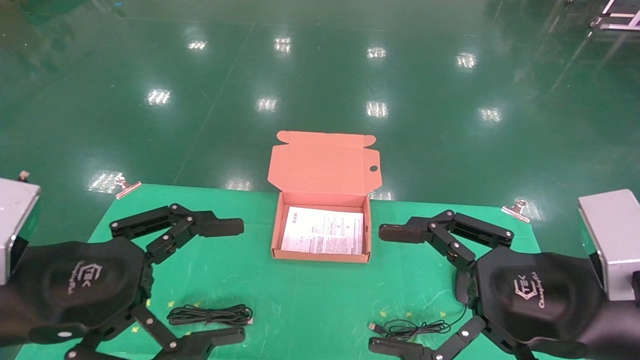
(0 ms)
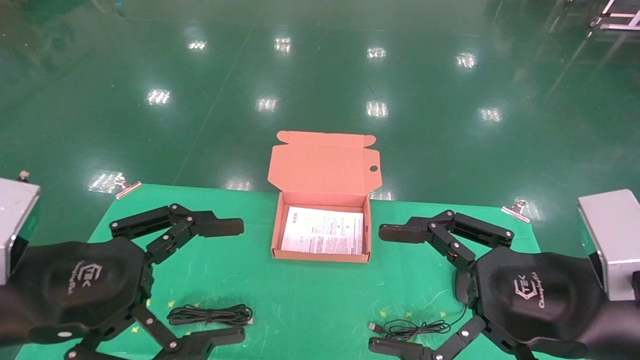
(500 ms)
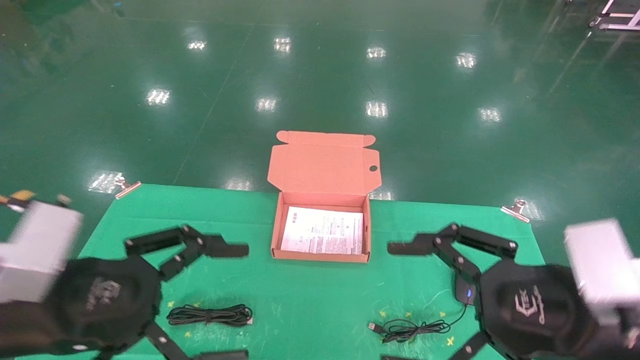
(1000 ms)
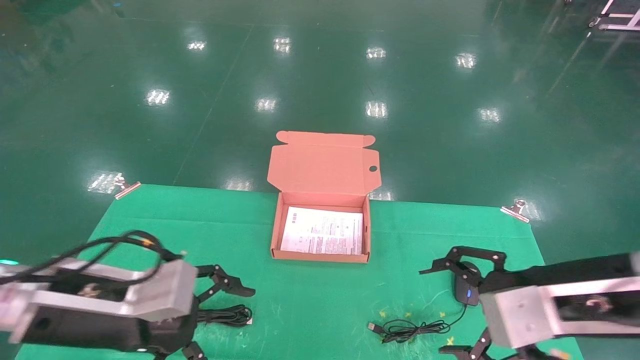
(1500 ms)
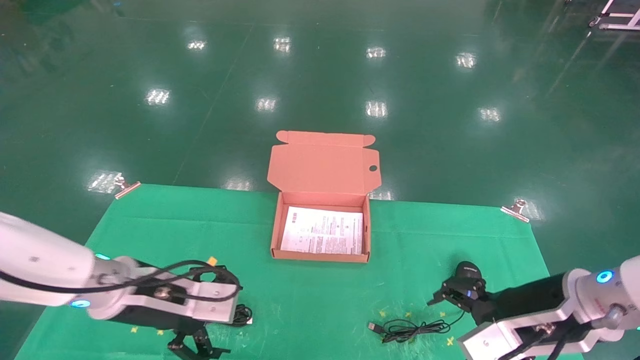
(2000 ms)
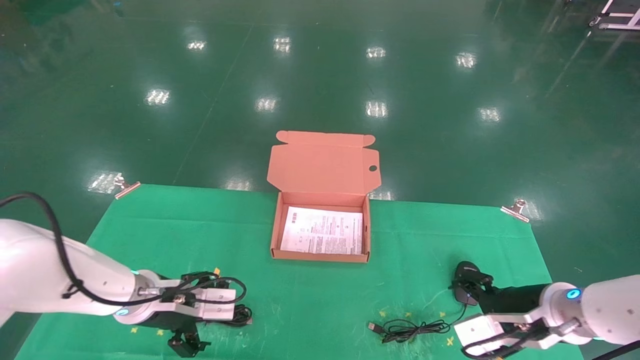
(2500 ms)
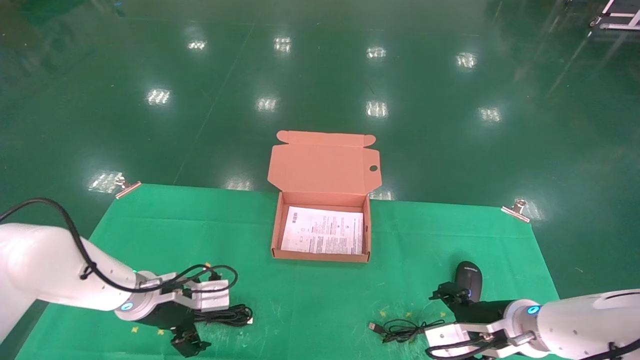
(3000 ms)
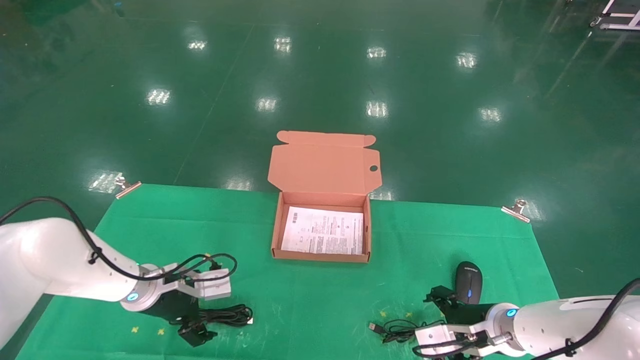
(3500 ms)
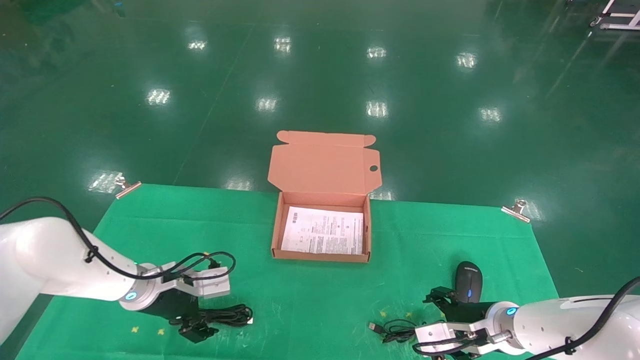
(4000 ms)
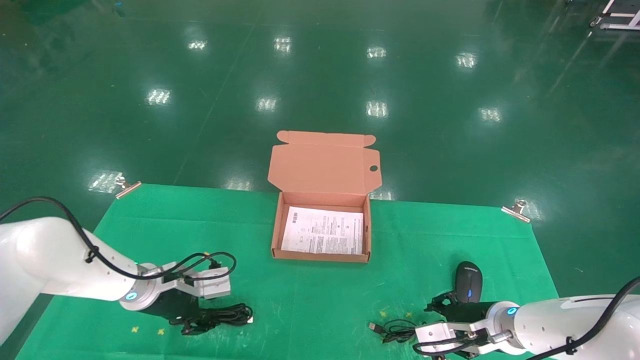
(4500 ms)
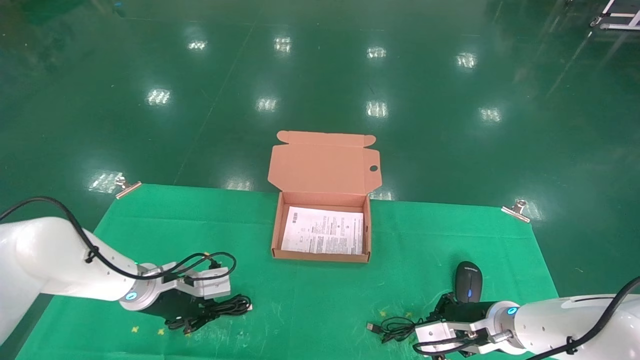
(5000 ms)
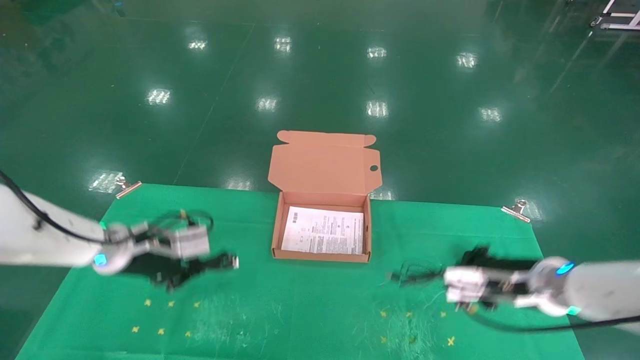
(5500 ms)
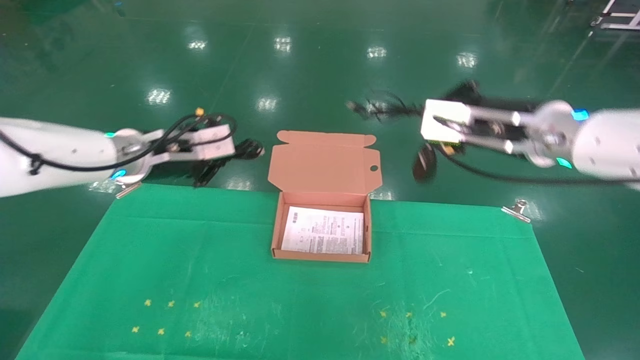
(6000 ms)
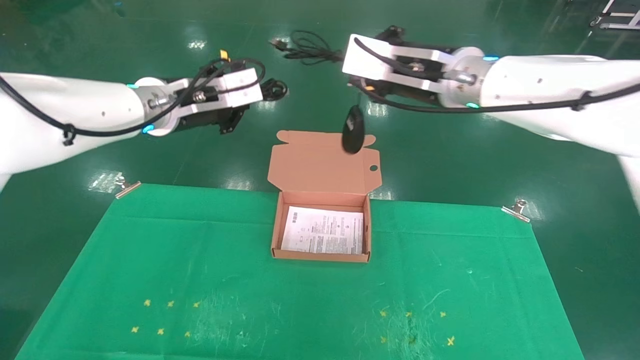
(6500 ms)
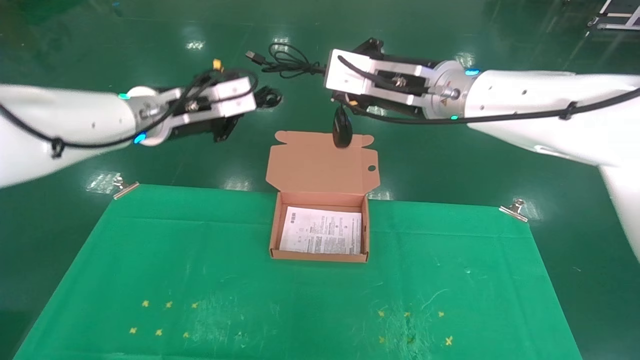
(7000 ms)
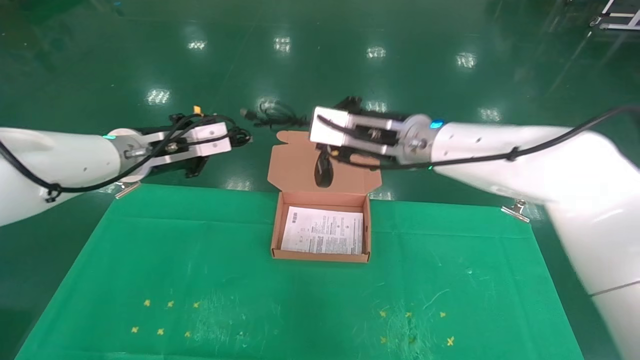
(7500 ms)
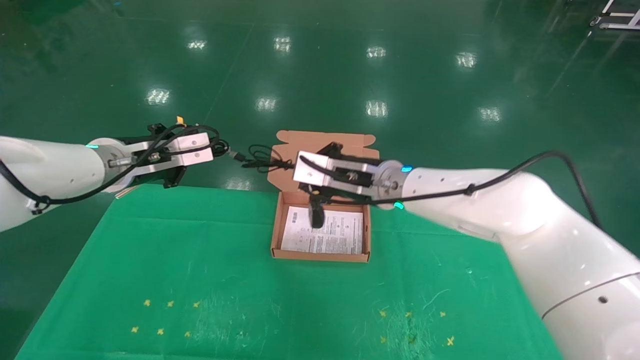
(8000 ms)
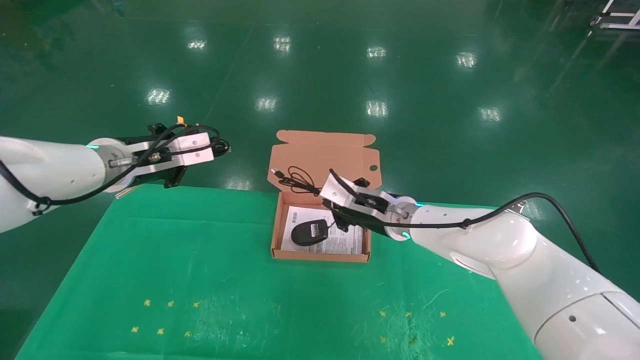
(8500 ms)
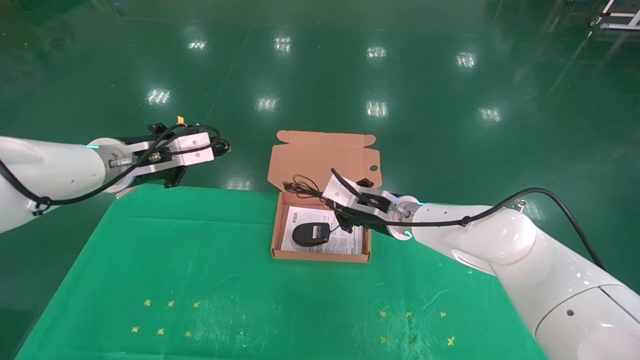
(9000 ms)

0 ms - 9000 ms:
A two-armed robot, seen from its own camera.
Task of the whole recording: grasp data cable left put into box grasp mouse right put into box.
Step, 1500 ms - 5500 ms: Grab and pick up both the mouse and power cord from the accessory packaging area at the same time.
0 ms - 2000 ms: Both grippers travel together forward and downward, about 15 cm.
2000 ms - 4500 ms: The left gripper travels forward and downward by some 15 cm, and closes; the right gripper heads downward and forward, covering some 15 cm, and closes its fingers.
4500 ms - 7000 ms: The left gripper moves upward, roughly 25 cm, and closes its fingers; the right gripper travels upward and to the left by some 35 cm, and closes.
7000 ms - 9000 ms: The left gripper shifts approximately 10 cm downward and to the left; the right gripper moves downward and forward, approximately 20 cm.

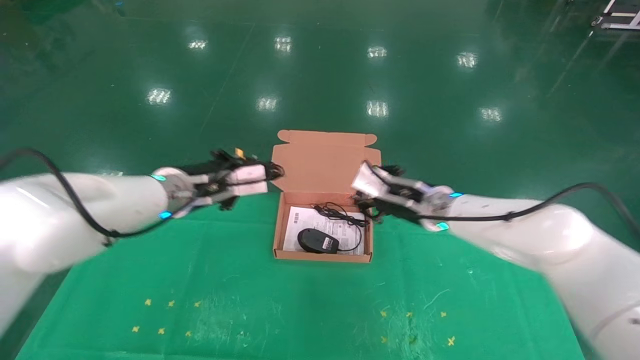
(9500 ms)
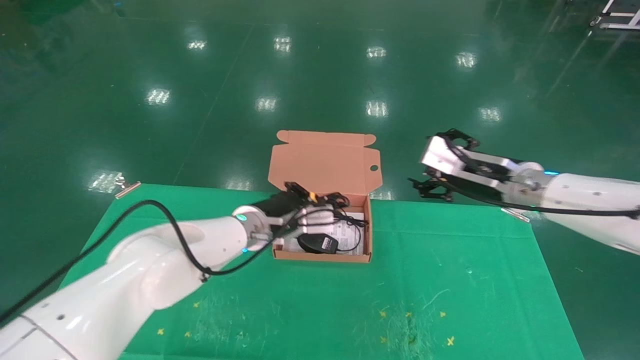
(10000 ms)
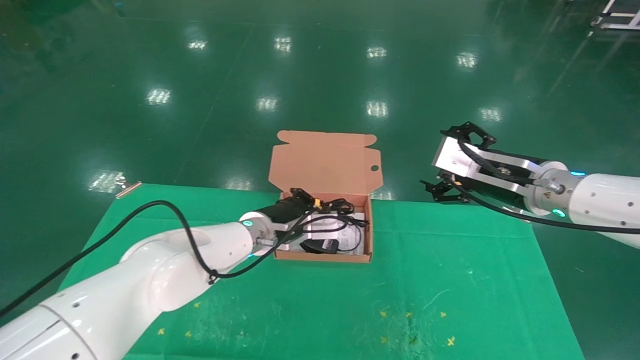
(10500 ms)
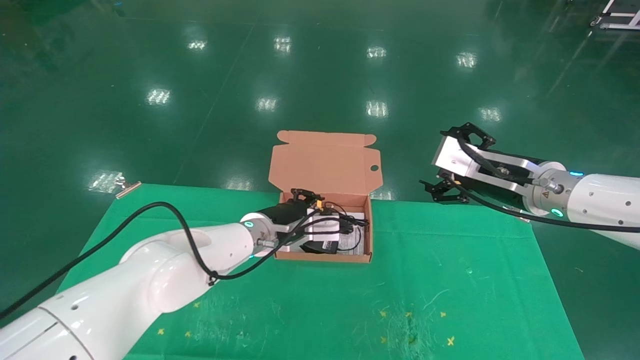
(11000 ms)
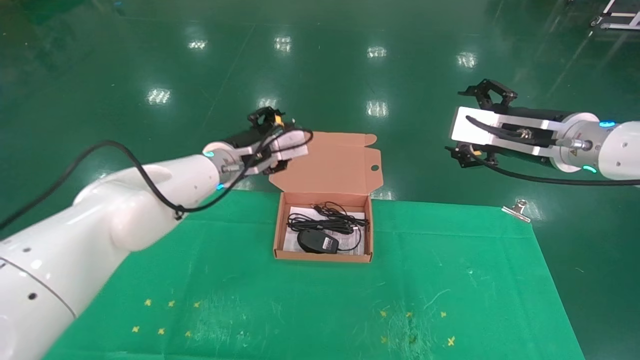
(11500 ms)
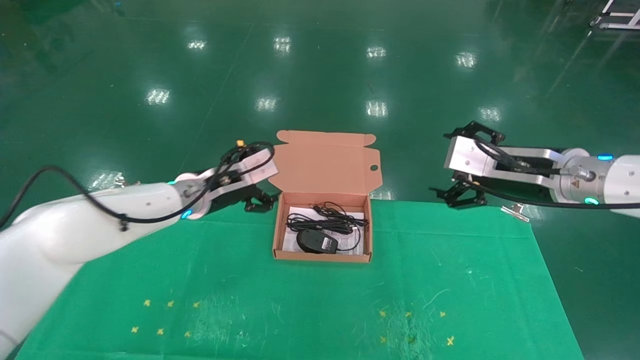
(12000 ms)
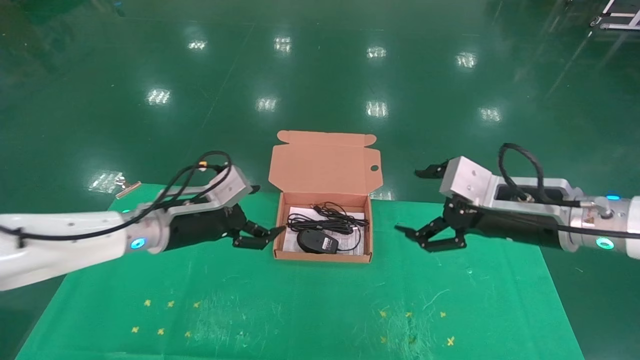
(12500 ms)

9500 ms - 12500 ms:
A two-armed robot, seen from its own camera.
Task of the whole recording: grasp data cable left put into box grasp mouse right put into box.
9500 ms - 11000 ms: The right gripper moves to the right, backward and upward, roughly 15 cm, and opens up. Meanwhile the left gripper moves to the right and downward, approximately 10 cm.
11000 ms - 12500 ms: The left gripper is displaced to the left and backward by approximately 15 cm, and opens its fingers, while the right gripper travels backward by roughly 5 cm.
